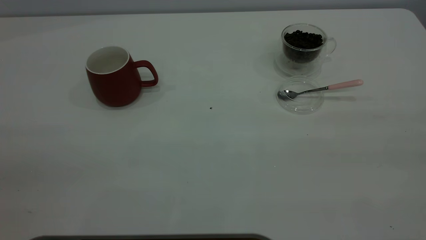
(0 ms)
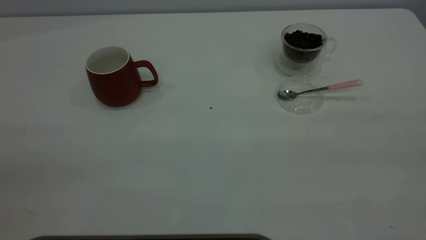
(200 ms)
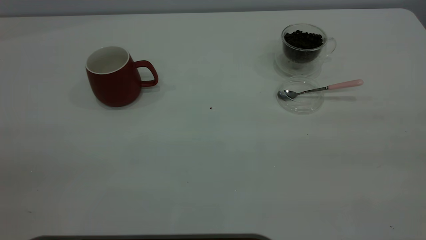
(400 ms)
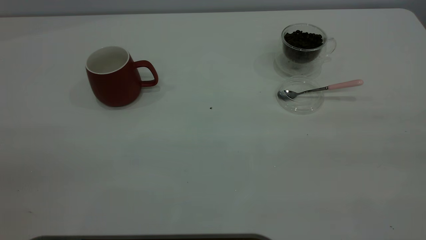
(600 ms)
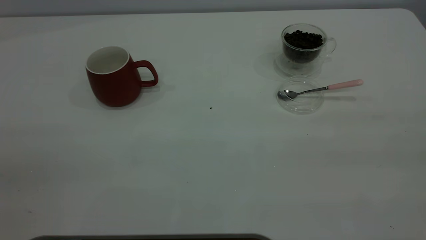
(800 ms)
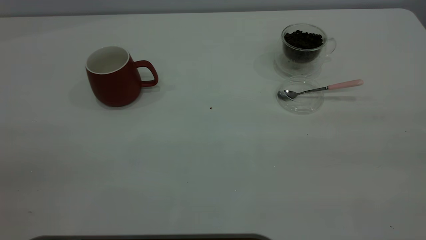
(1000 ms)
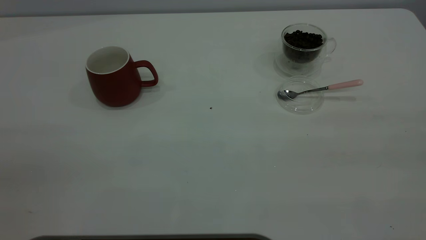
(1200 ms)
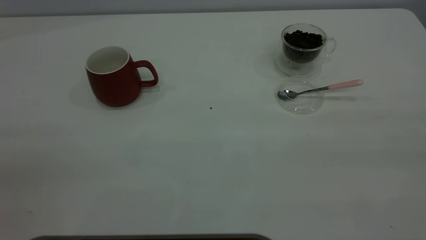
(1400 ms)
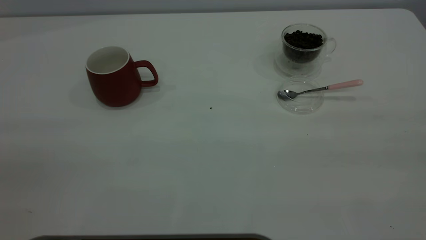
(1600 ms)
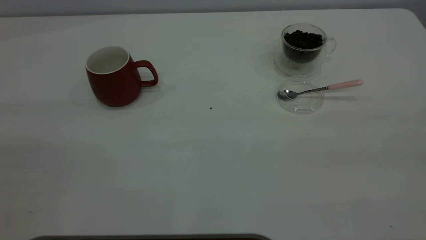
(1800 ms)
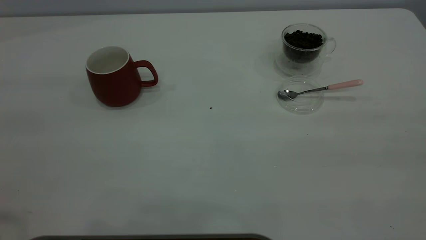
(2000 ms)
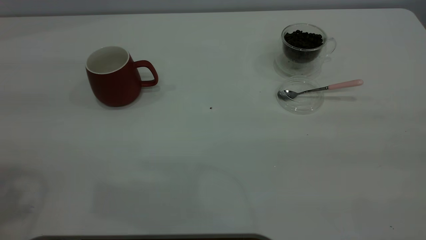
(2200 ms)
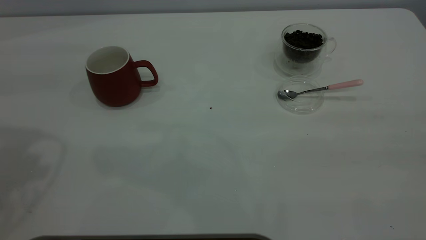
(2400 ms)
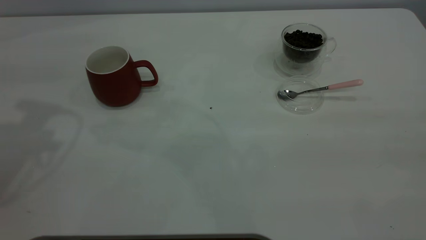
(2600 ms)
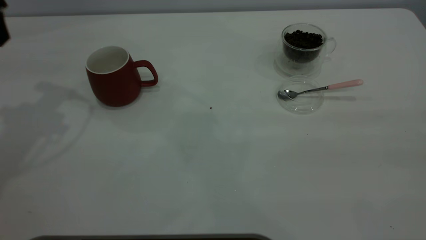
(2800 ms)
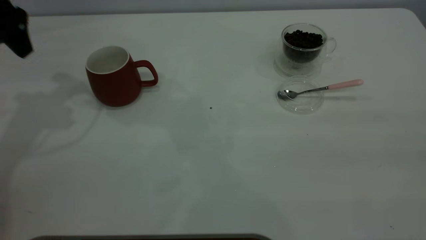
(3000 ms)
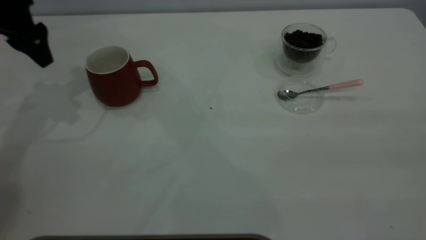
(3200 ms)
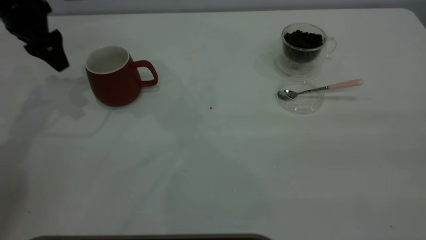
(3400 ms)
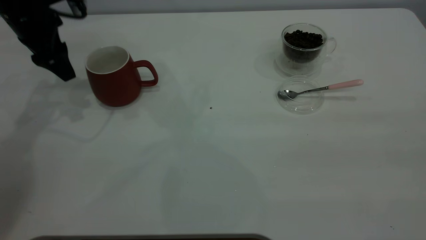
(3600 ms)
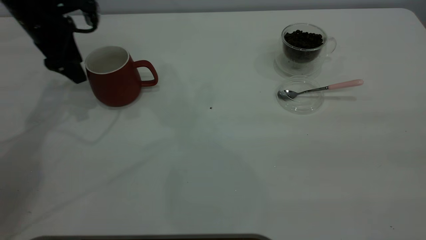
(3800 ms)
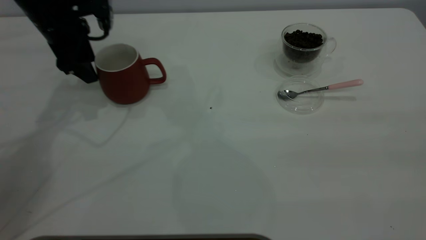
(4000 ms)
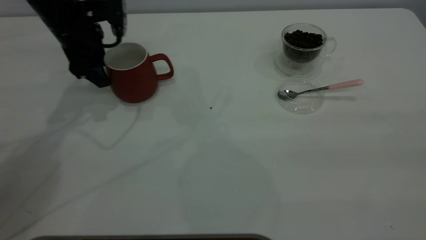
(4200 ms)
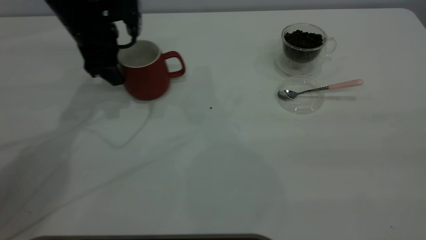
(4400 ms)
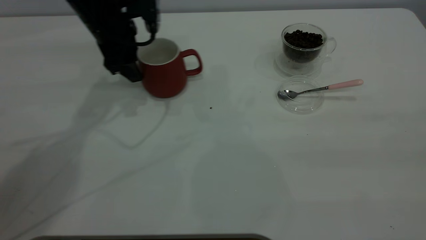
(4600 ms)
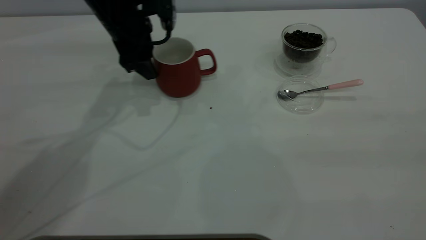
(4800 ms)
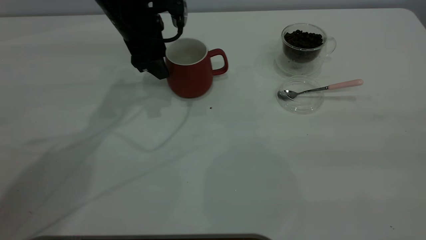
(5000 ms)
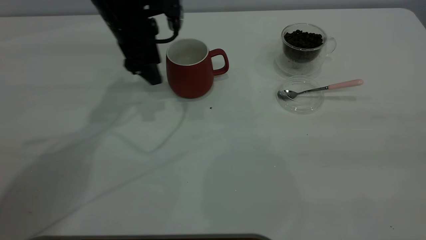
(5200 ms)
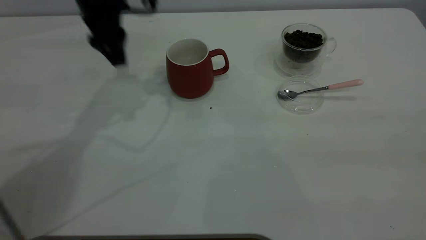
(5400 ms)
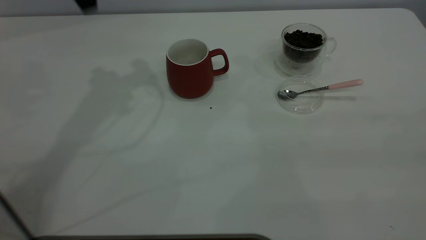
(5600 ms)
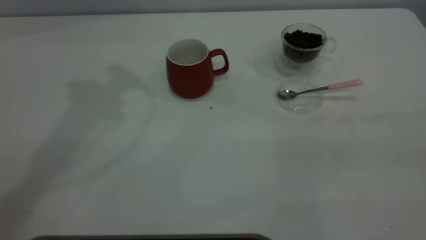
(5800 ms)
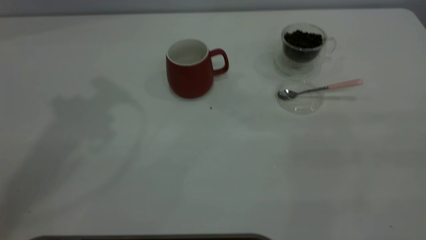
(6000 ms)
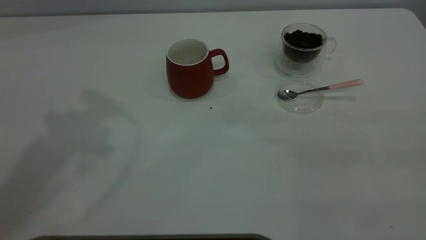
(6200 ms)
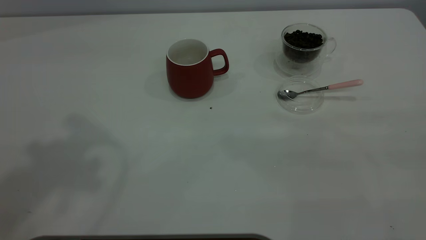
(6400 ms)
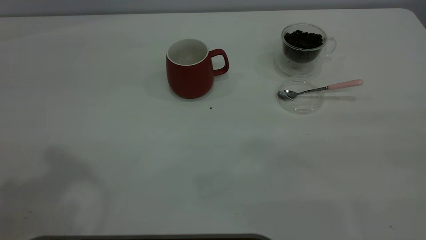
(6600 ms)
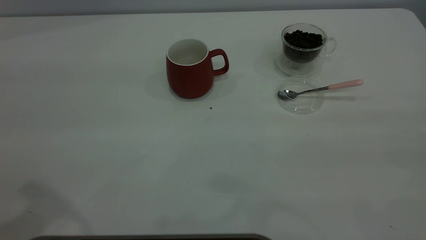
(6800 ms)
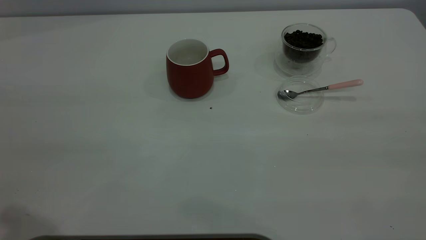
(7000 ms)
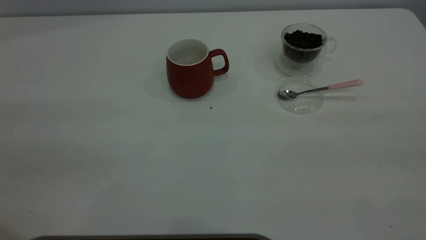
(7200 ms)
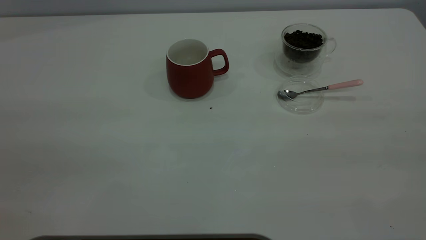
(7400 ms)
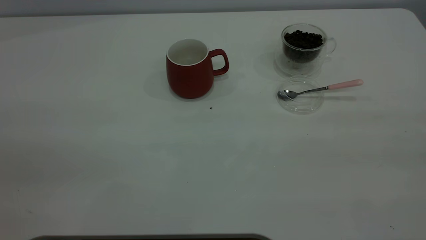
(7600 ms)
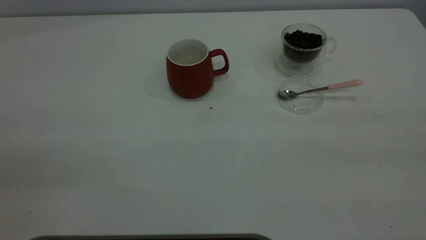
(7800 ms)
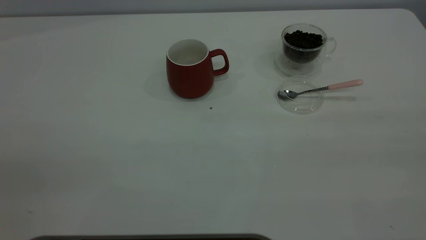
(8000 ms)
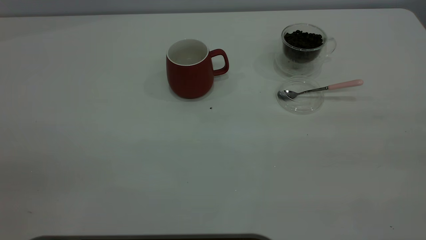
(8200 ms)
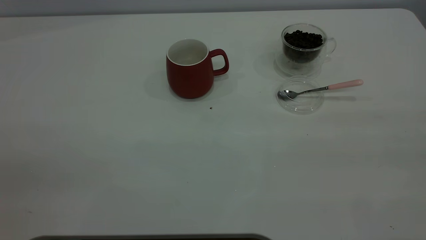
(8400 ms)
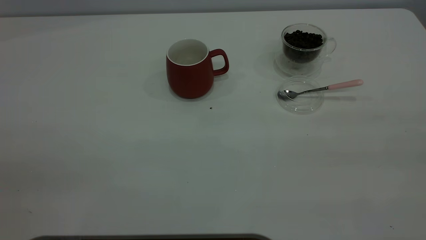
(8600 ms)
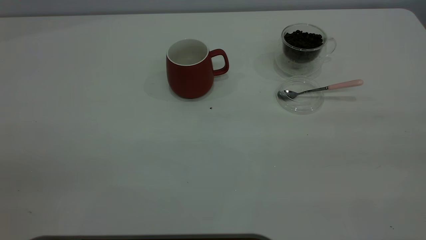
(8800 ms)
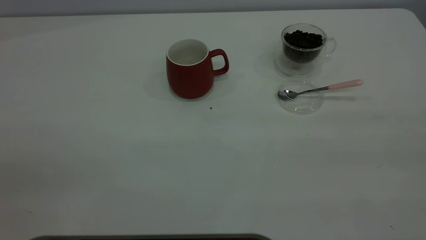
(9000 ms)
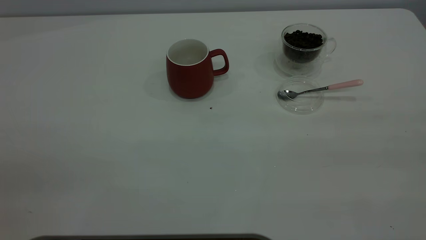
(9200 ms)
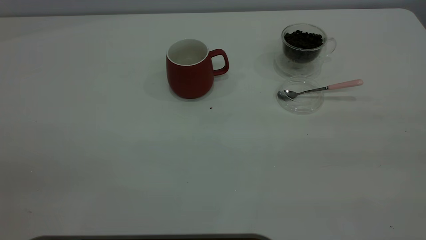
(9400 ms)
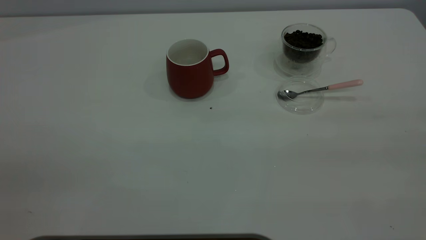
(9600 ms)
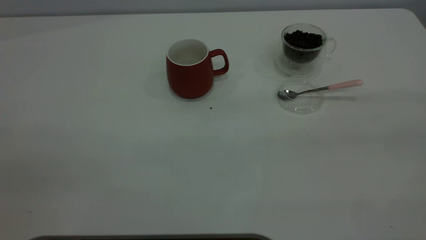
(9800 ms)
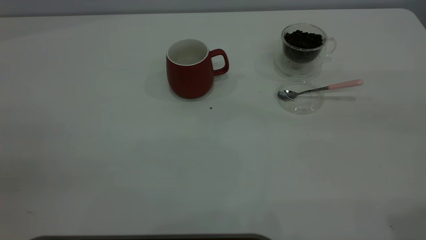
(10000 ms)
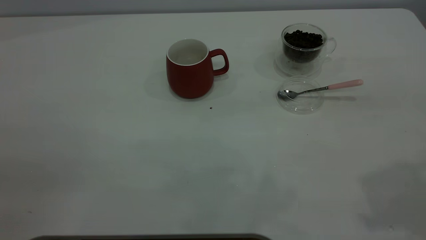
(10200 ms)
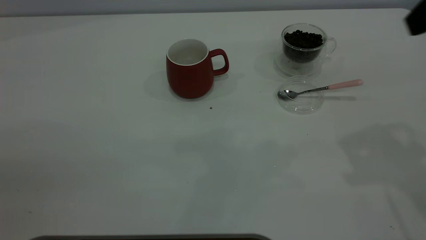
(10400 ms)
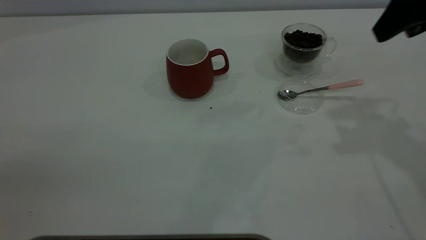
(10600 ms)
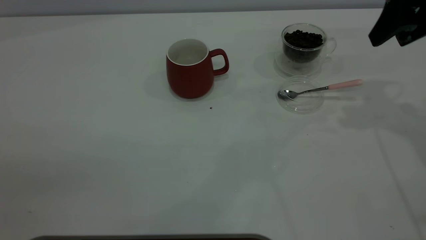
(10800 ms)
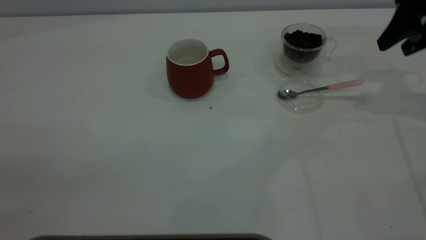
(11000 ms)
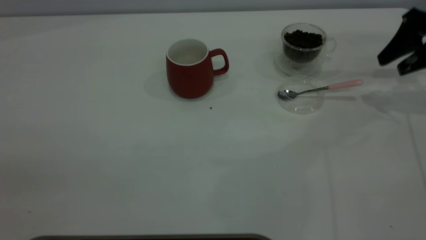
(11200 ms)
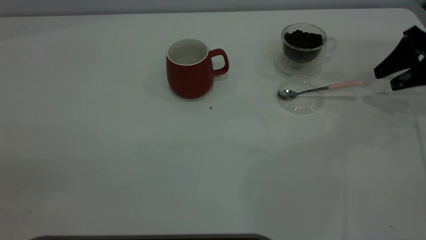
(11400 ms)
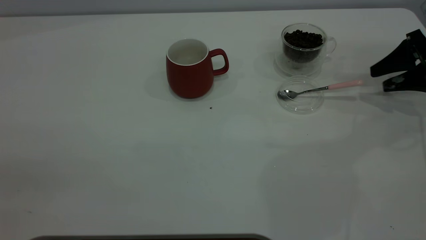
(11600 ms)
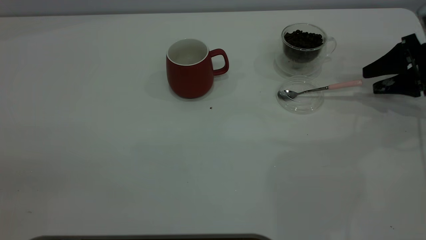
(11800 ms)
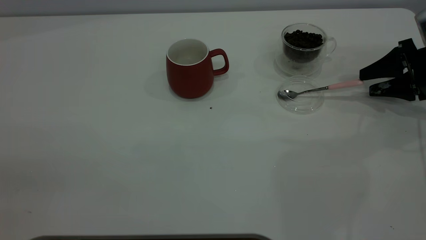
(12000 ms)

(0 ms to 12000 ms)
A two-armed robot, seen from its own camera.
Task of the whole recording: the left gripper place the red cup in the center of the table, the right gripper take the pink spoon from the cup lid and scoop out the coffee beans from the coffee cup and put them into the red cup, the right gripper put the spoon back into the cup lid.
Step, 0 ms - 5200 ms: Move the cup to the center of view.
1600 ms - 3000 ms: The left gripper moves forward, some 40 cm.
3000 ms - 4400 ms: The left gripper goes about 15 cm to the right, downward and forward.
4400 ms - 6000 ms: The left gripper travels upward by some 30 cm.
10400 ms - 12000 ms: The right gripper travels downward, forward and to the right by roughly 30 cm.

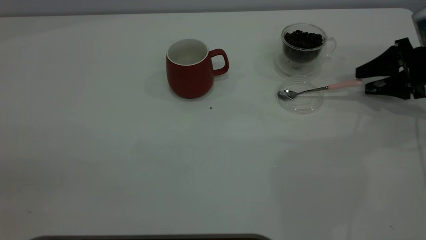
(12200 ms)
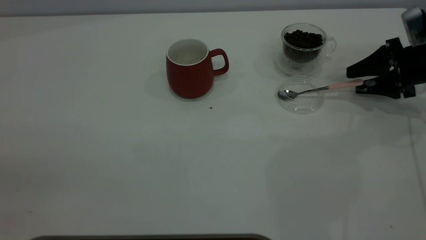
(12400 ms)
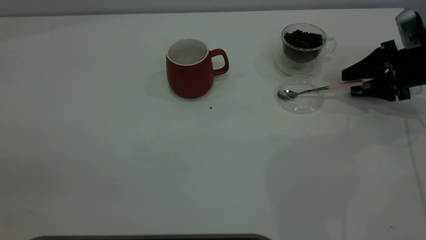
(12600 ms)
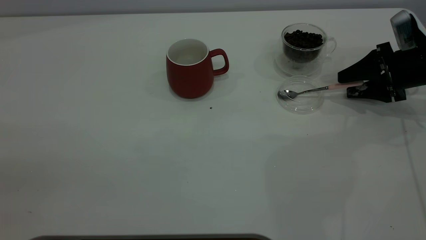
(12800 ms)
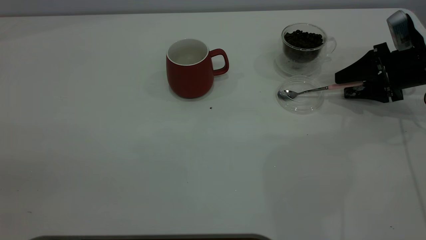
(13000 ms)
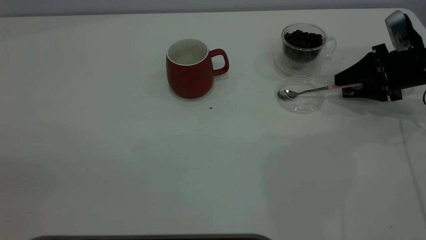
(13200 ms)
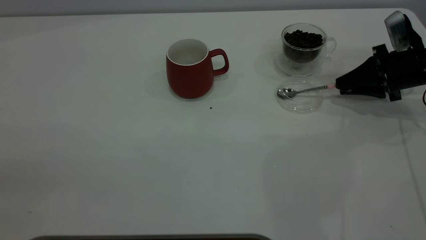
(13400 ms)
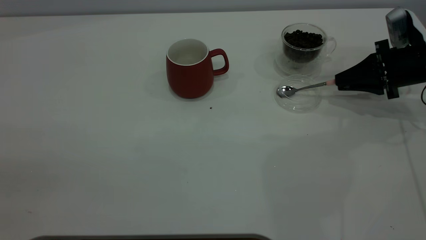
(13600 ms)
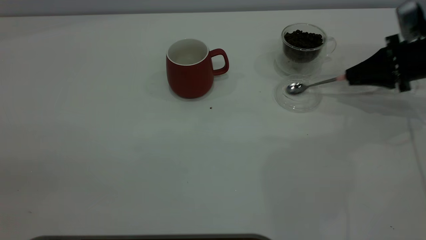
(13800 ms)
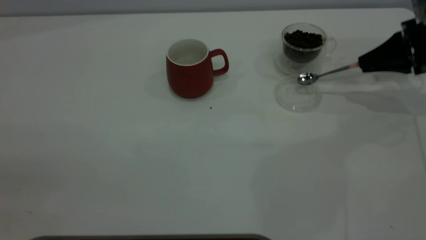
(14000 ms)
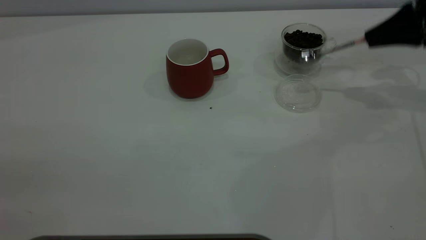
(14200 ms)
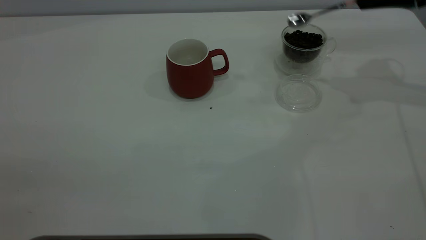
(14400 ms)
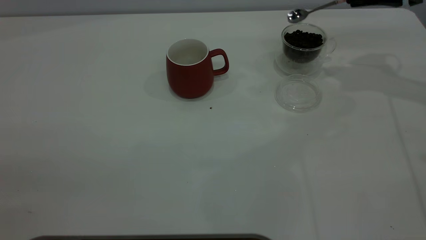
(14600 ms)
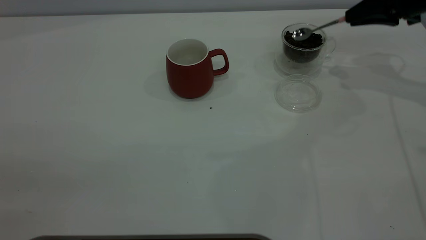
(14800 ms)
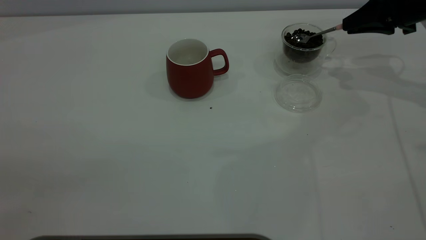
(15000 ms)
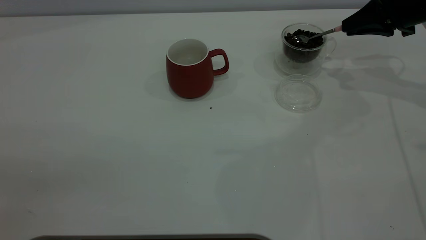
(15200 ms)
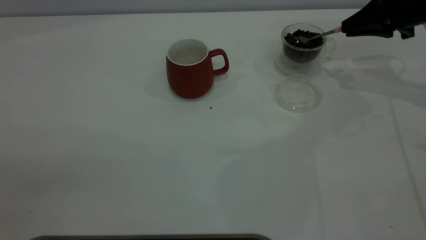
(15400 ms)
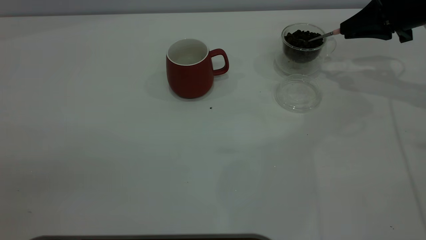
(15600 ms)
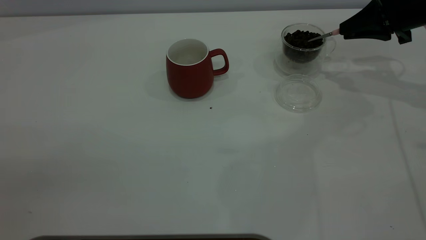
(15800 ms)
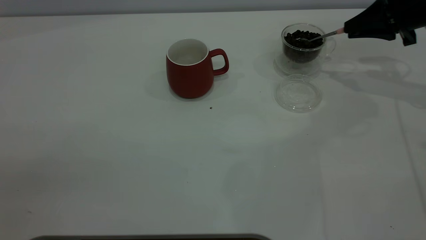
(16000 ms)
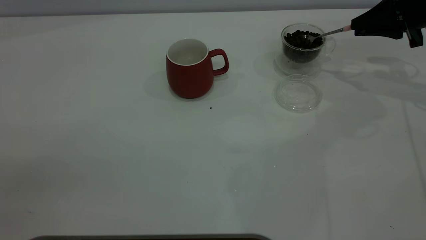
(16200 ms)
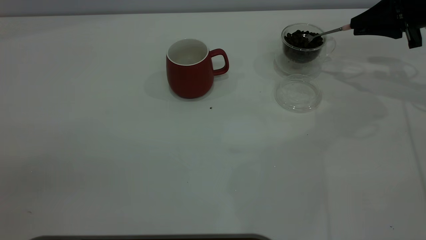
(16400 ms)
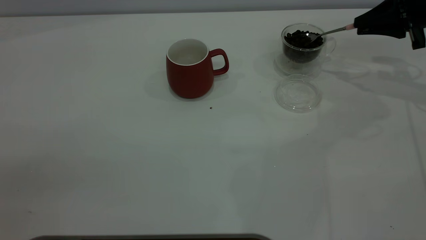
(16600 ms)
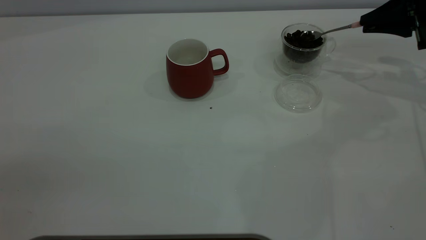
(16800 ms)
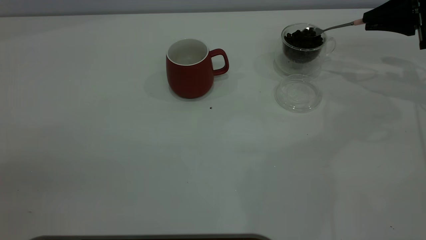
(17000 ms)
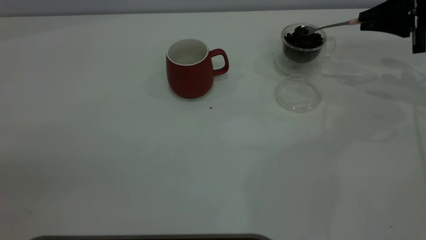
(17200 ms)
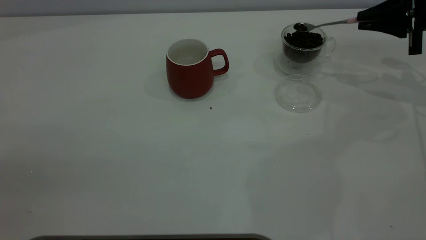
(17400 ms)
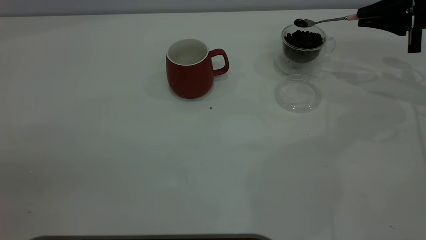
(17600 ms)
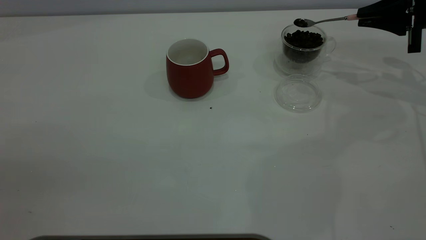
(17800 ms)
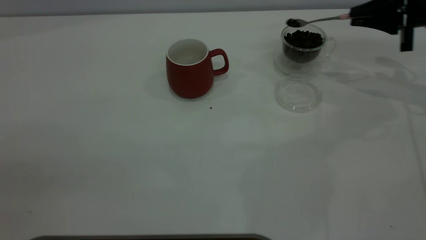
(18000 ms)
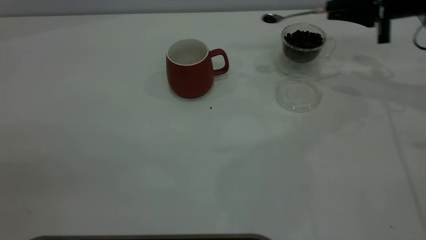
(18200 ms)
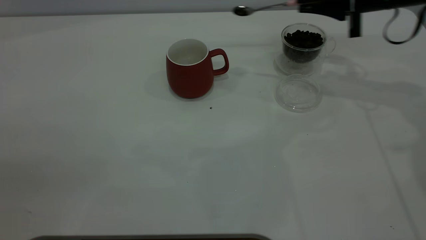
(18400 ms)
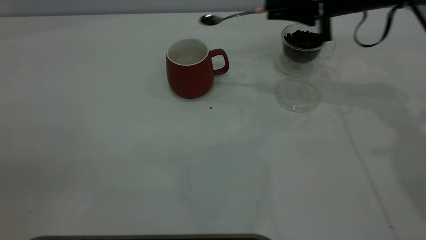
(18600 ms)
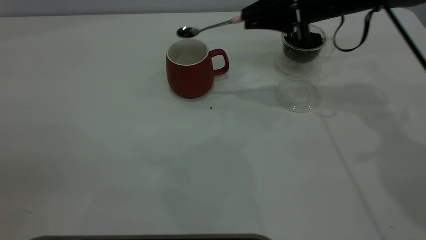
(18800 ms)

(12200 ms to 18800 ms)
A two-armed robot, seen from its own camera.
Task of the whole recording: the left gripper place the red cup in the center of the table, the right gripper take the pink spoon from the cup lid and scoop out the coffee beans from the coffee cup and put them into the red cup, the right gripper put the spoon back into the cup lid.
12200 ms - 13800 ms: The right gripper closes its fingers.
13800 ms - 15400 ms: The right gripper moves upward, roughly 5 cm.
17200 ms - 18800 ms: The right gripper moves to the left, approximately 20 cm.
